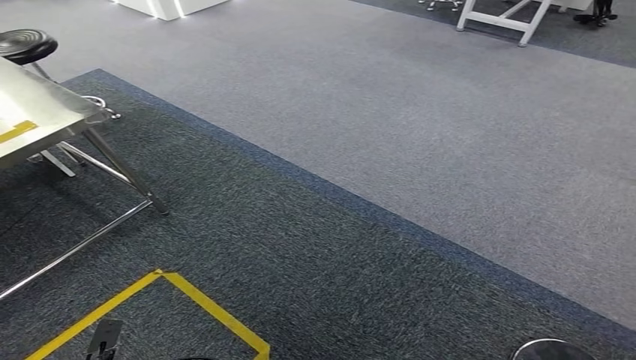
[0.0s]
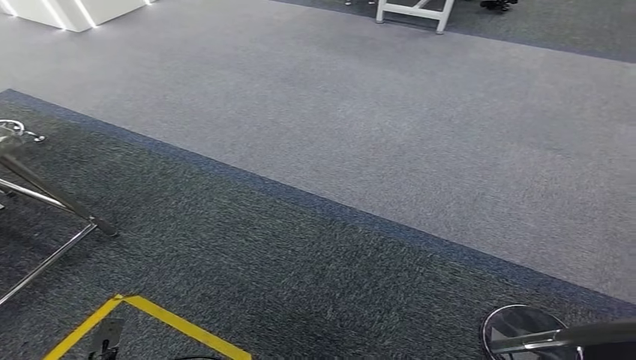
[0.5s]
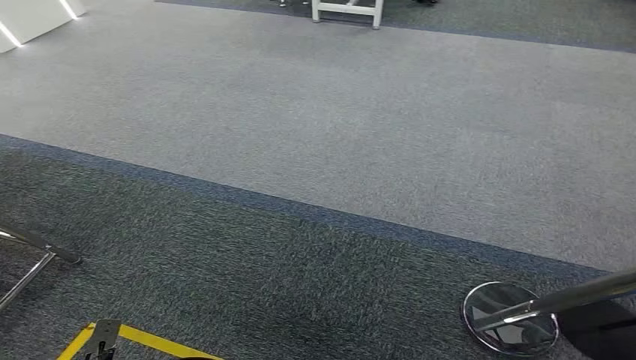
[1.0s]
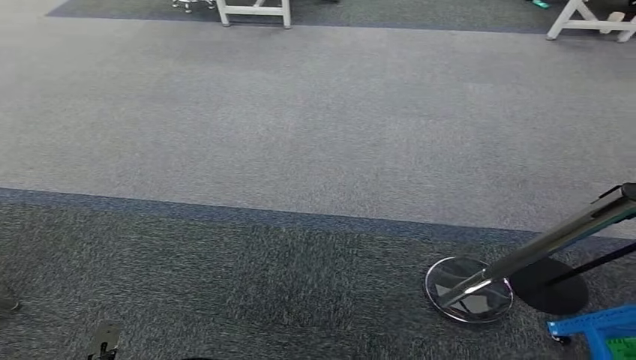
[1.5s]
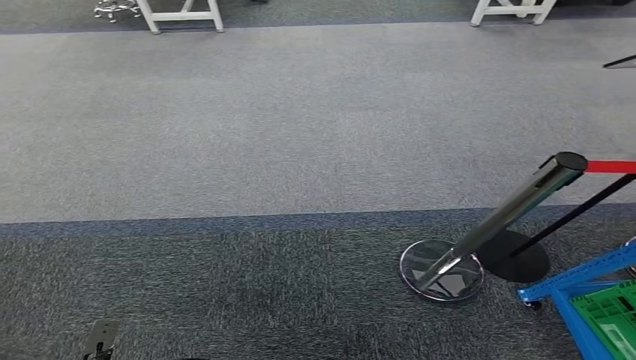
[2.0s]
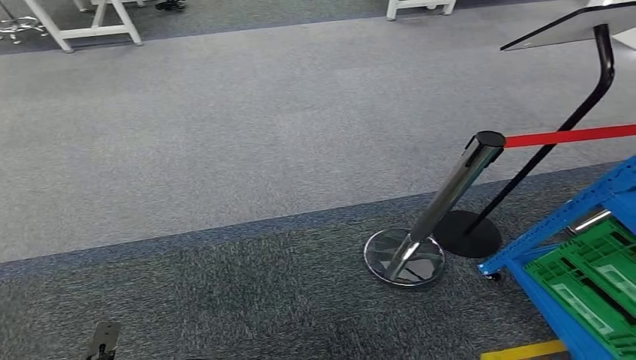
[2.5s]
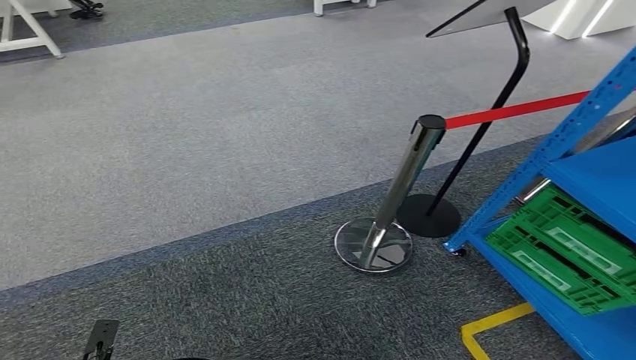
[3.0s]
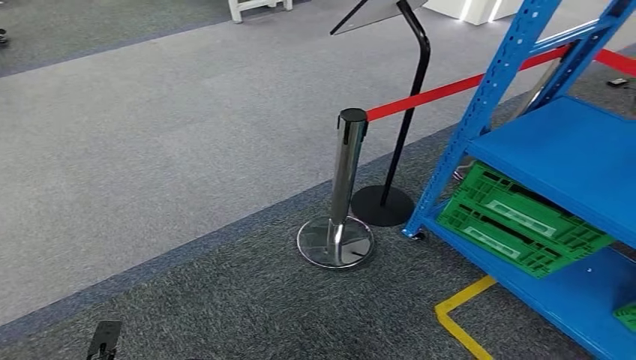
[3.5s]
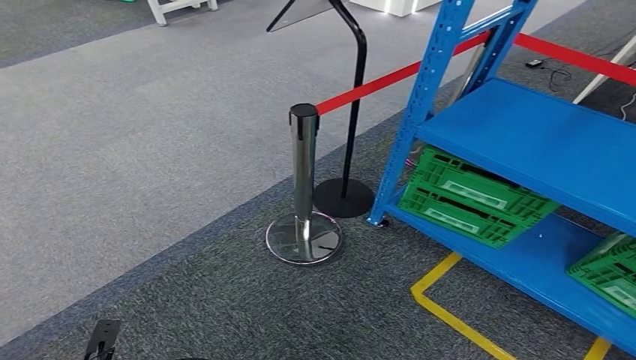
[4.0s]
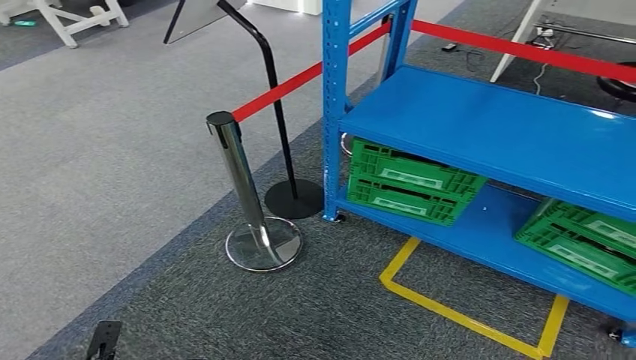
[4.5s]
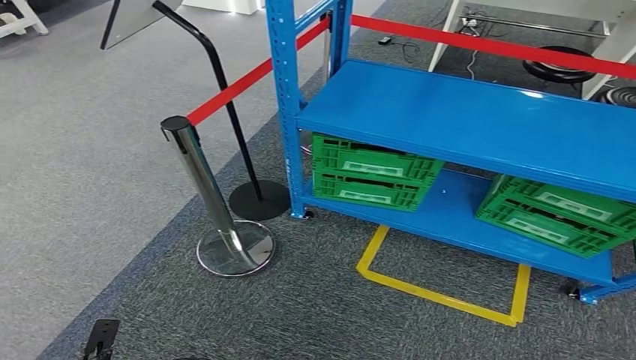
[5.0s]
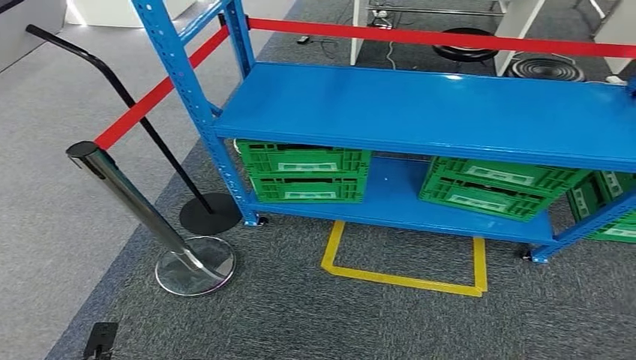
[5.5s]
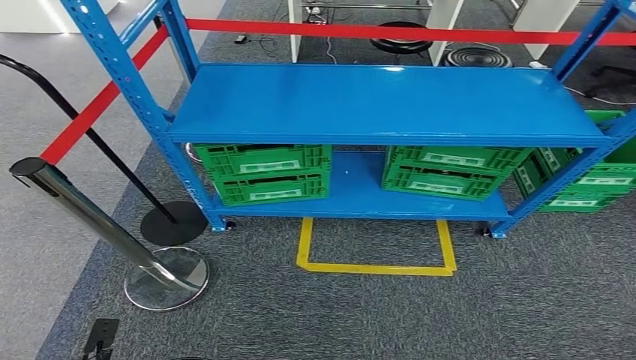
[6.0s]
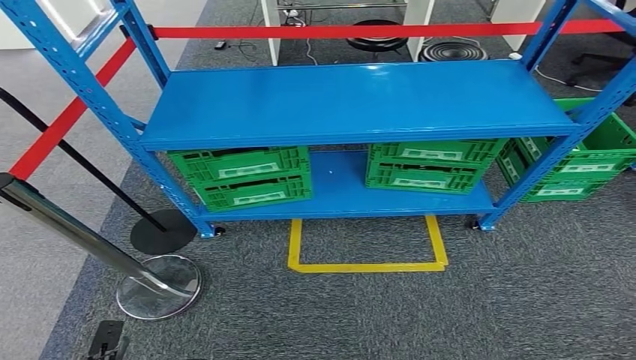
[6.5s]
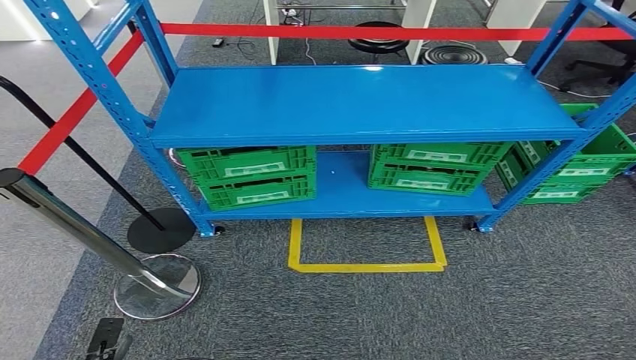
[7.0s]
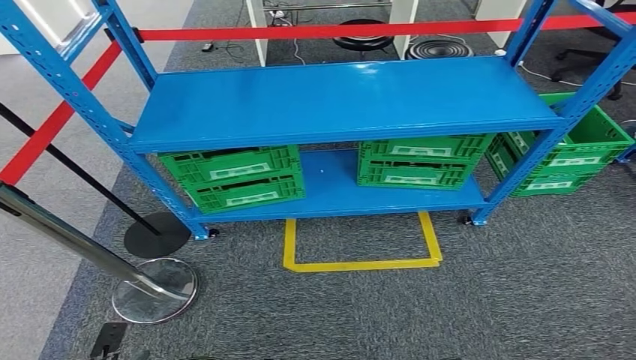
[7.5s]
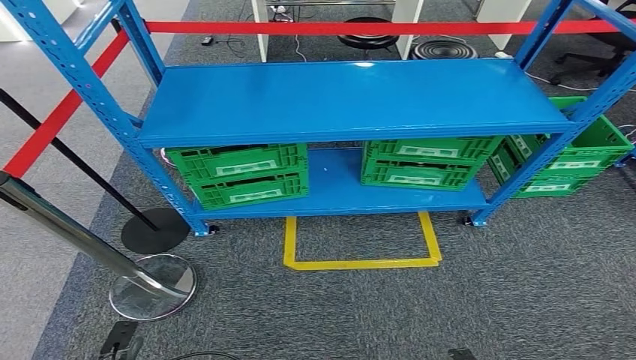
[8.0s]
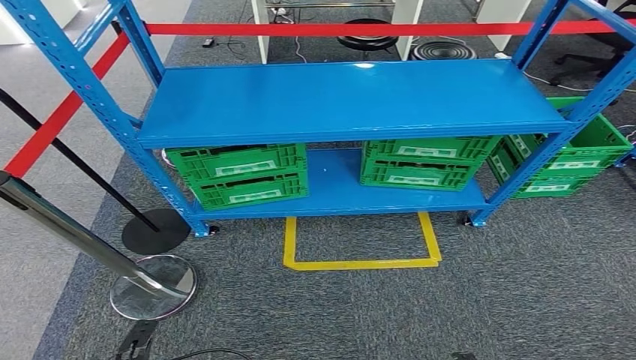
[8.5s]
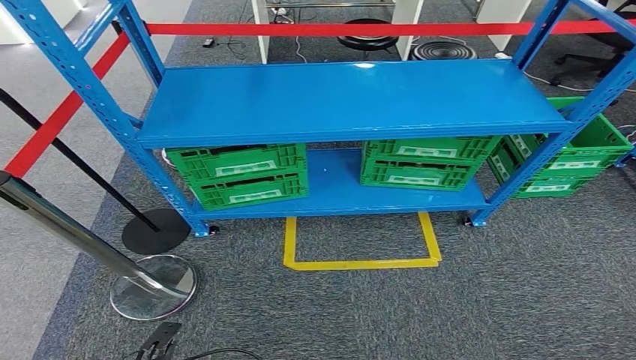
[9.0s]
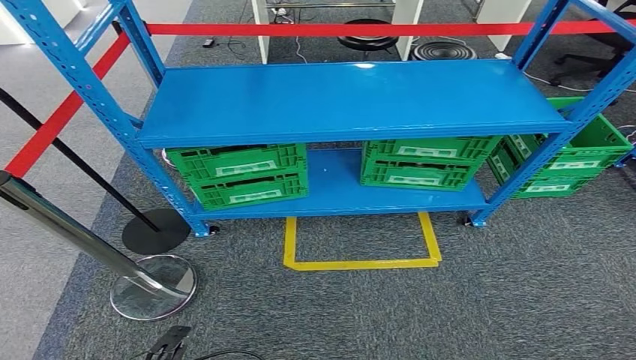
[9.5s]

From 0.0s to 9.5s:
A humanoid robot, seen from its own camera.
Step, from 0.0s to 9.0s: Return to the initial position at the workbench.
From 7.5s to 9.5s: The right hand moves about 5 cm.
